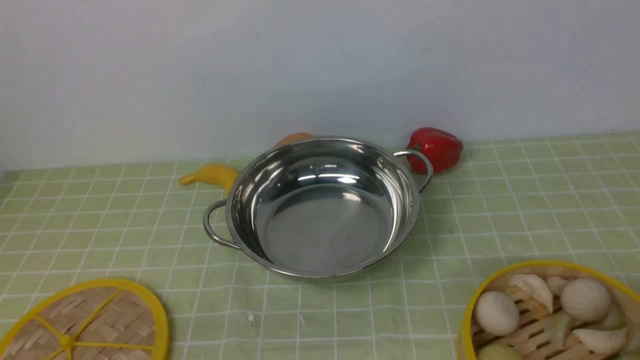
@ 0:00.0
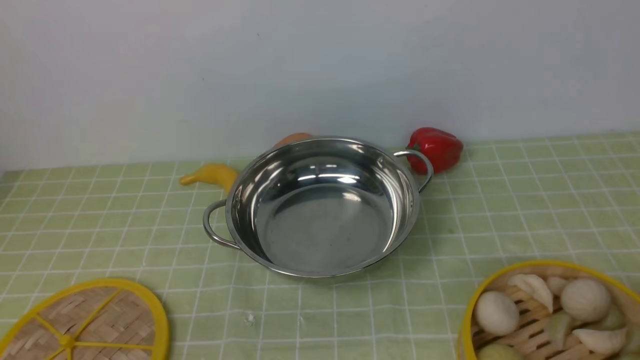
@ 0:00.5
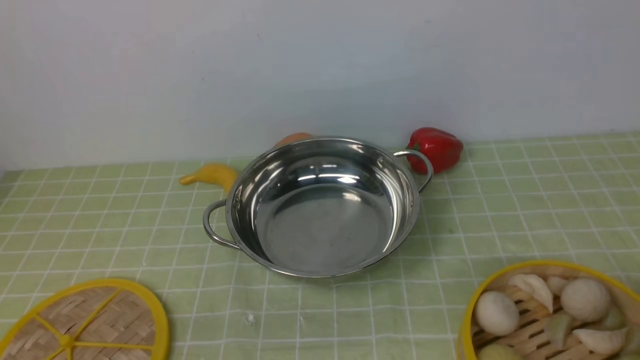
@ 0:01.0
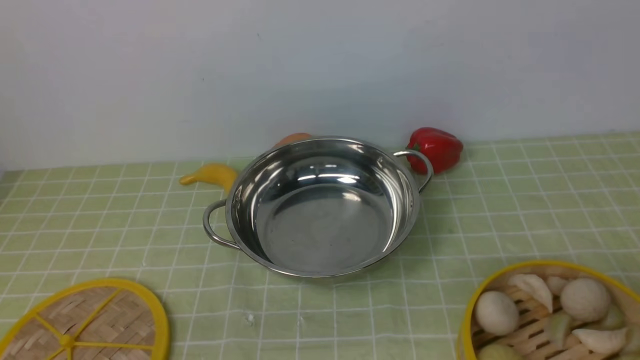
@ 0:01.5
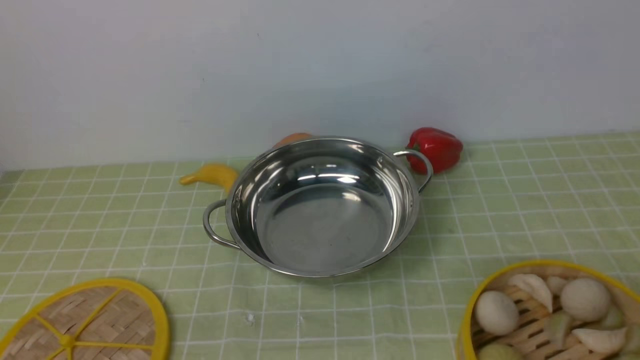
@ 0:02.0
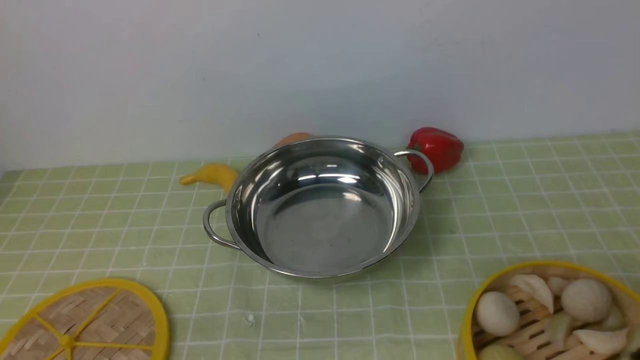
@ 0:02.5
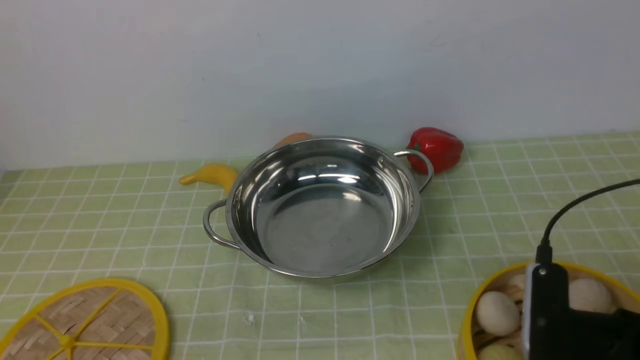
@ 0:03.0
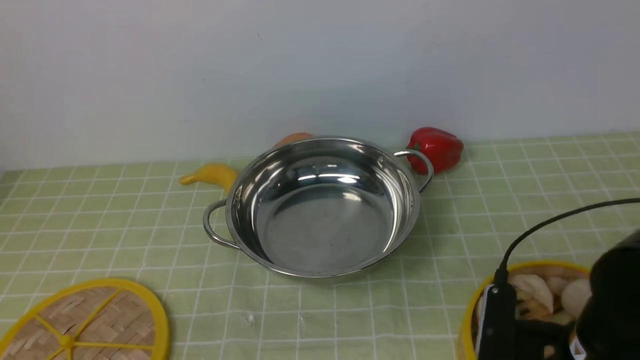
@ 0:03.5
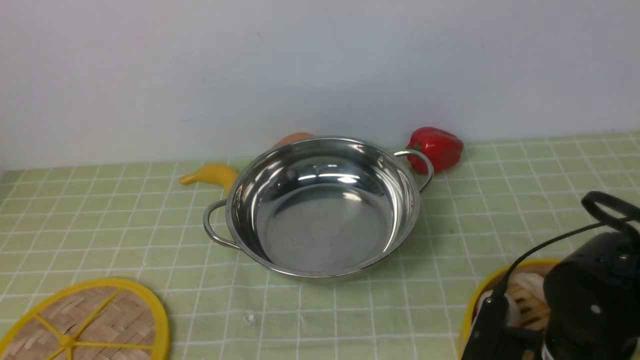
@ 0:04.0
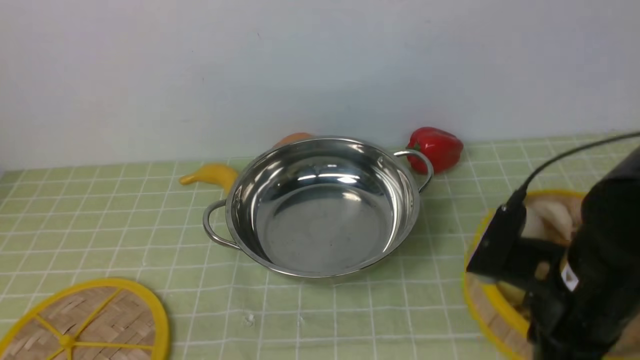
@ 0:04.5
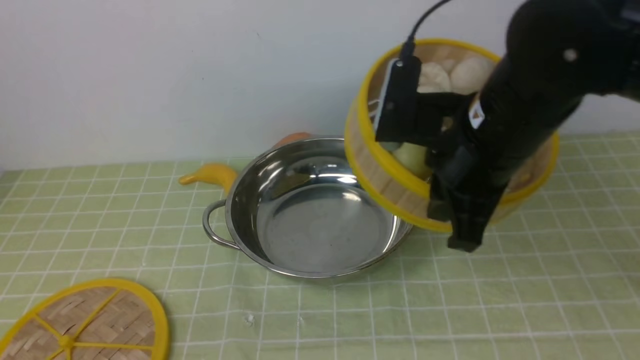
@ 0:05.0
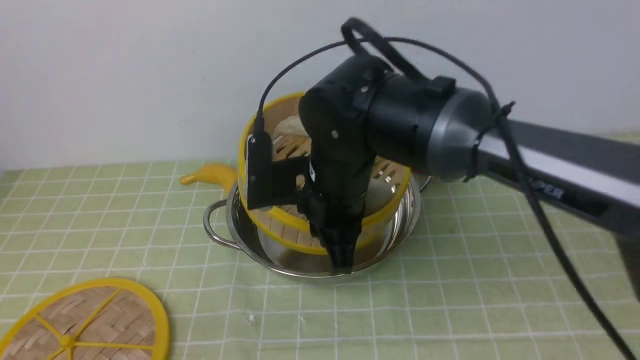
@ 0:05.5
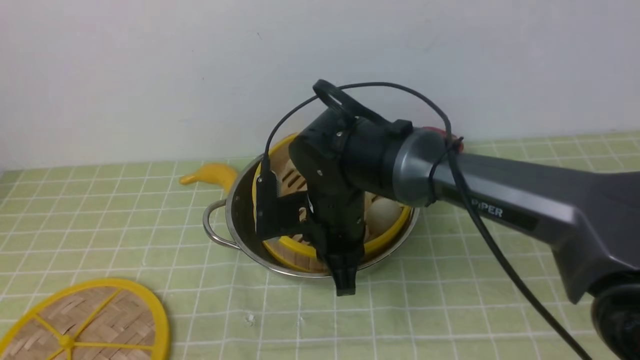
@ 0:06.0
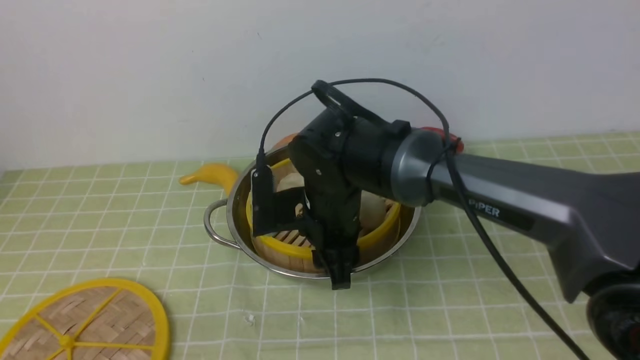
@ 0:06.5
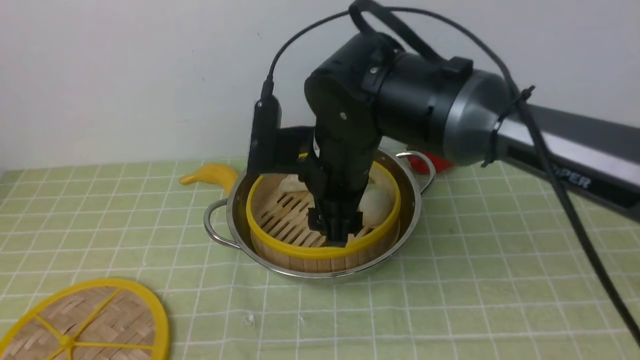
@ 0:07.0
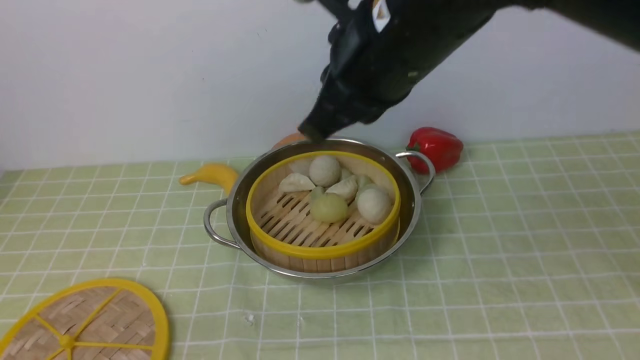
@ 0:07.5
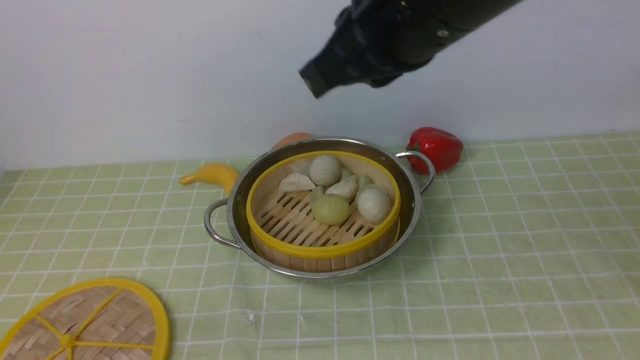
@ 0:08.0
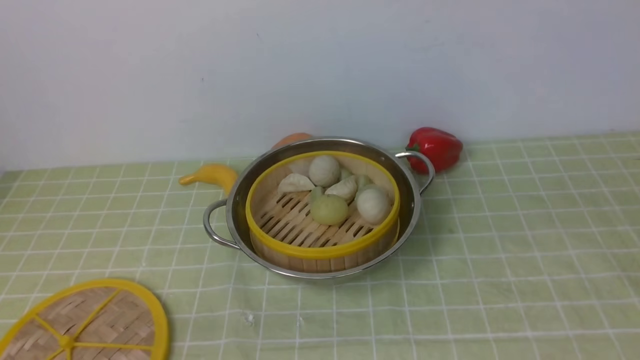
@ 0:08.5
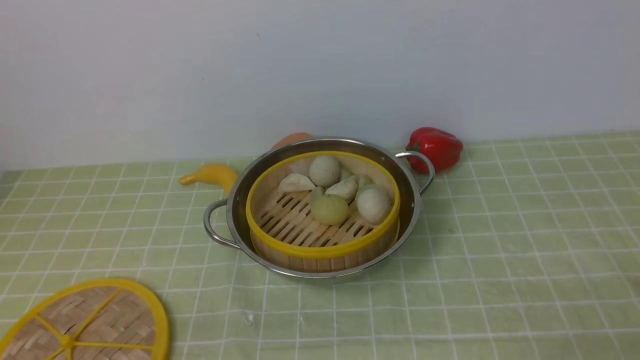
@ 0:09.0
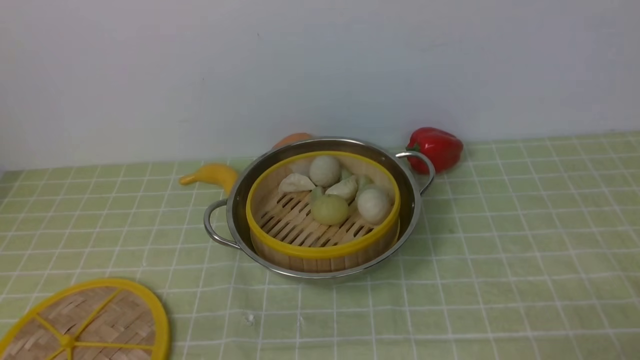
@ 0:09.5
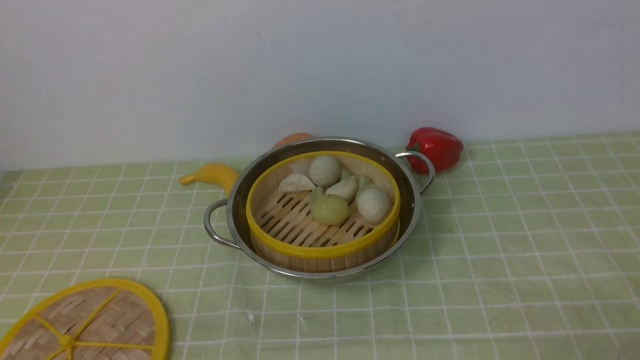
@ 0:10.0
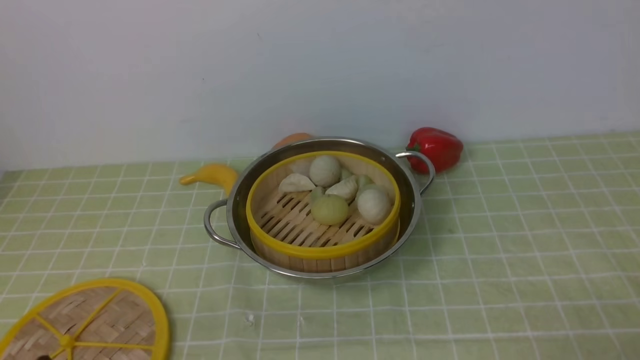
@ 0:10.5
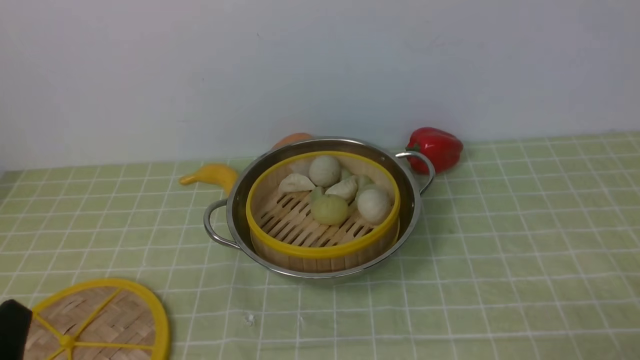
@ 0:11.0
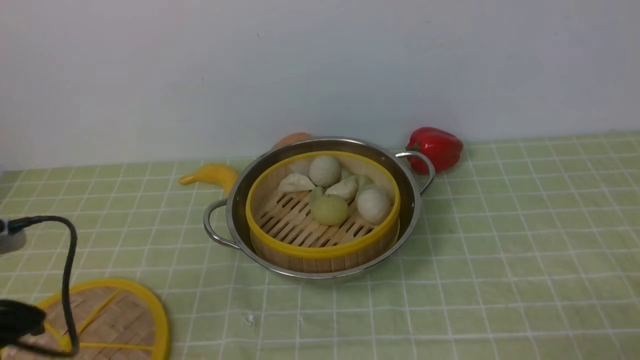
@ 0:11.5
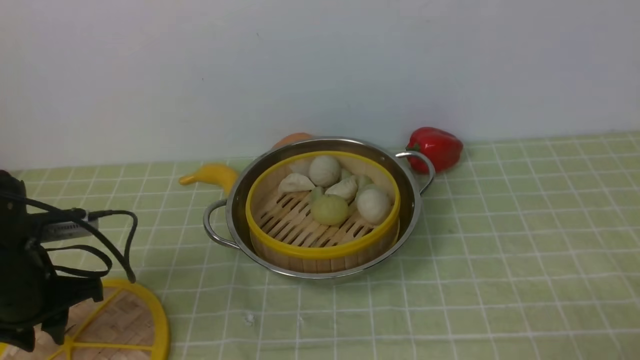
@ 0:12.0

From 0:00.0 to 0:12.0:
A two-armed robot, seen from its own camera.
Task of the whole recording: place the steamer in the pot on the green tablecloth, and put the lid on the steamer.
Step, from 0:00.0 to 0:05.0: use the right arm to lift the steamer closest to it.
Step, from 0:05.5 to 0:08.5: use the right arm to put the steamer into the iron steamer pot in the middle.
From 0:02.0 to 0:04.0: The right gripper goes about 25 cm forward, downward and to the left.
From 0:04.0 to 0:06.0: The right gripper travels to the left and forward by roughly 25 cm.
From 0:06.0 to 0:08.0: The right gripper goes roughly 25 cm upward and to the right, and opens, then closes again.
From 0:08.0 to 0:10.0: The right gripper is displaced downward, to the right and backward by about 40 cm, and opens.
From 0:10.0 to 0:12.0: The left gripper heads forward, covering some 20 cm.

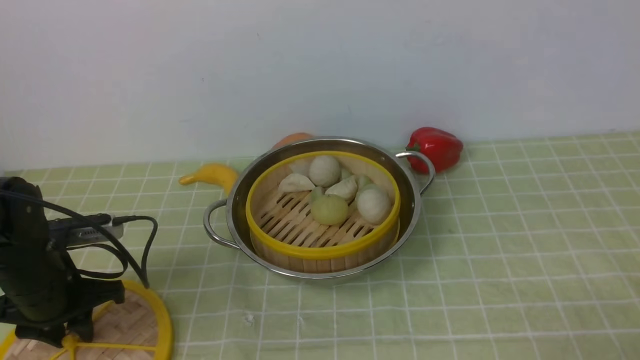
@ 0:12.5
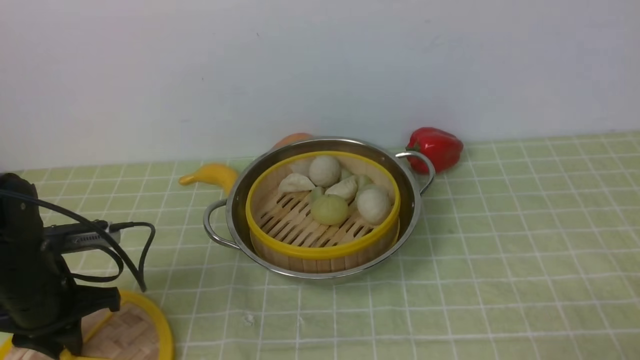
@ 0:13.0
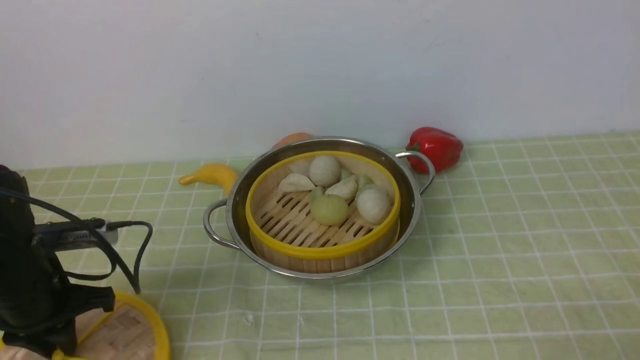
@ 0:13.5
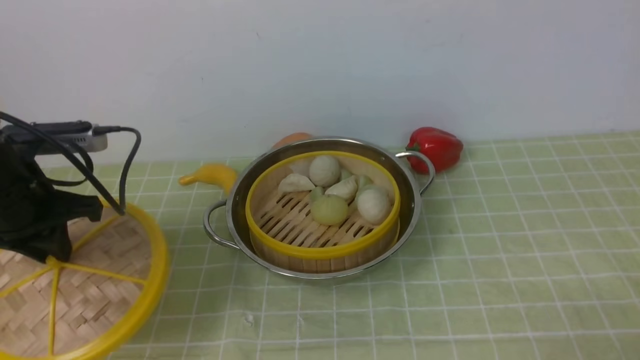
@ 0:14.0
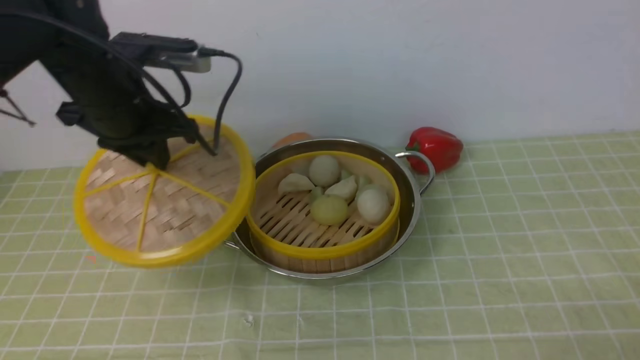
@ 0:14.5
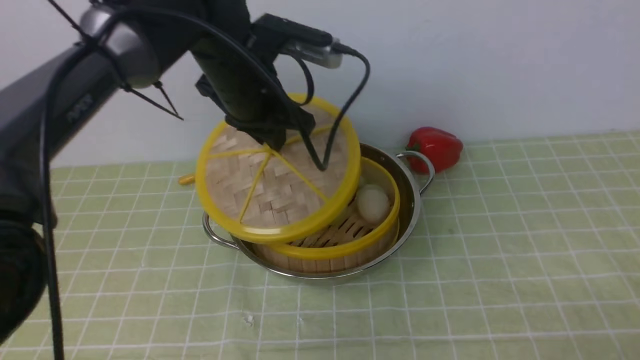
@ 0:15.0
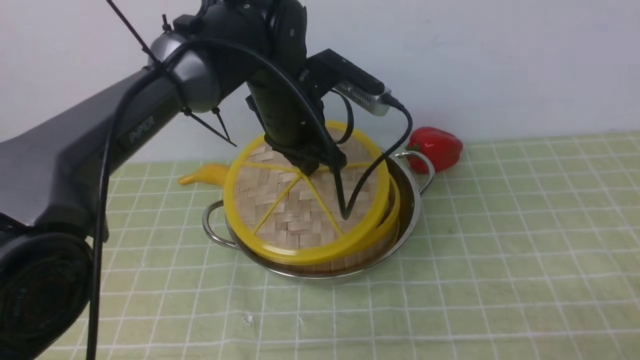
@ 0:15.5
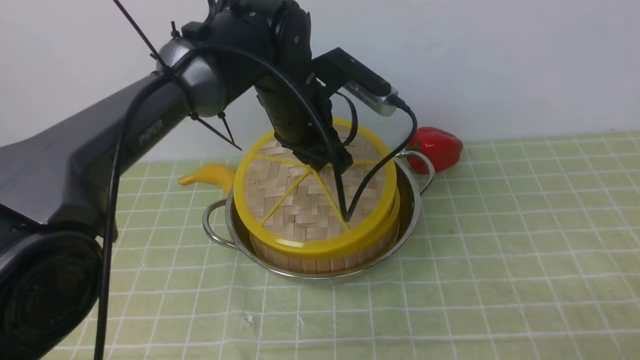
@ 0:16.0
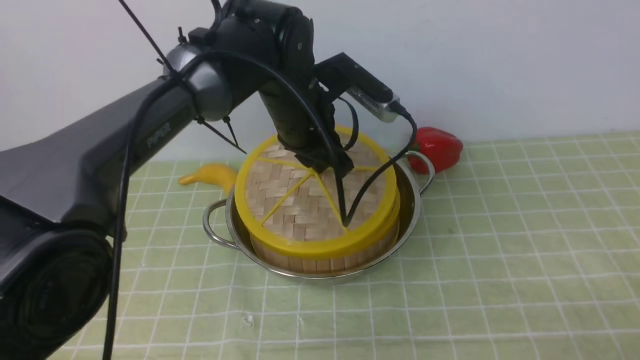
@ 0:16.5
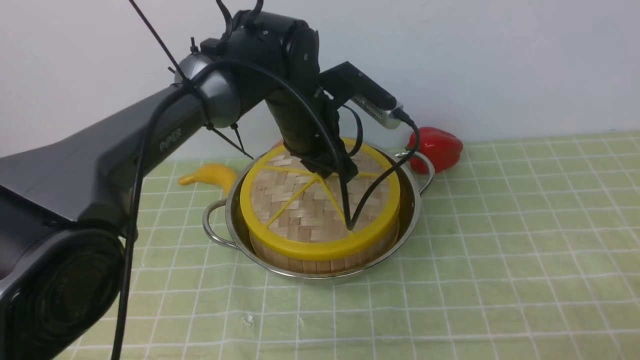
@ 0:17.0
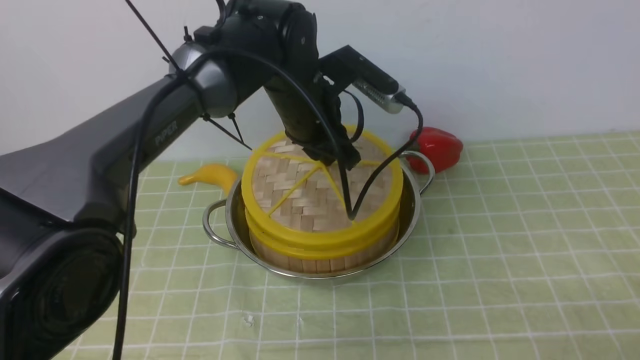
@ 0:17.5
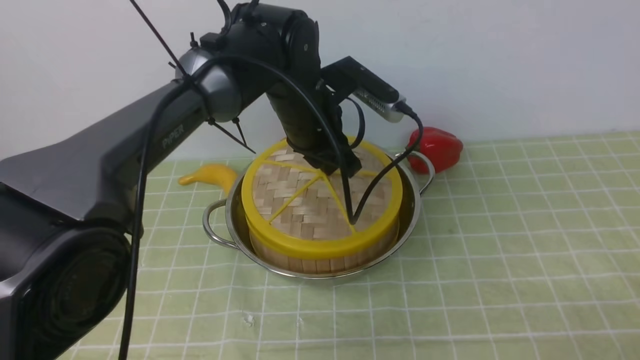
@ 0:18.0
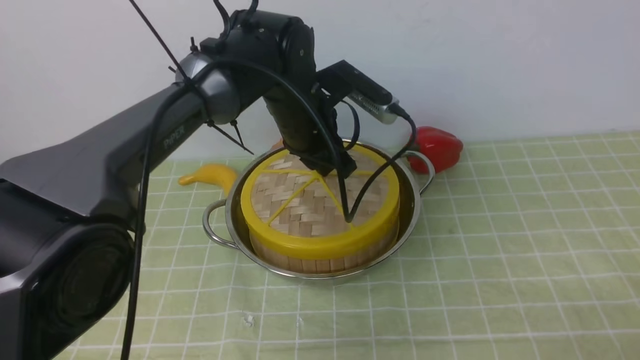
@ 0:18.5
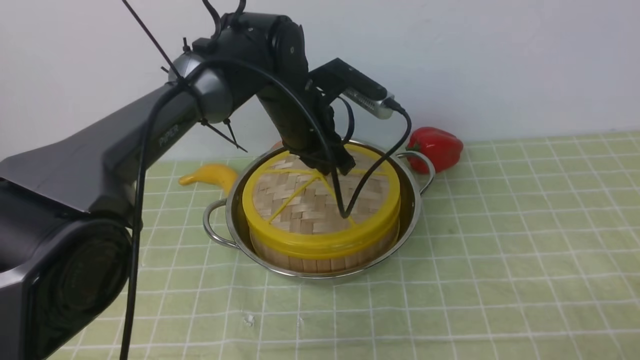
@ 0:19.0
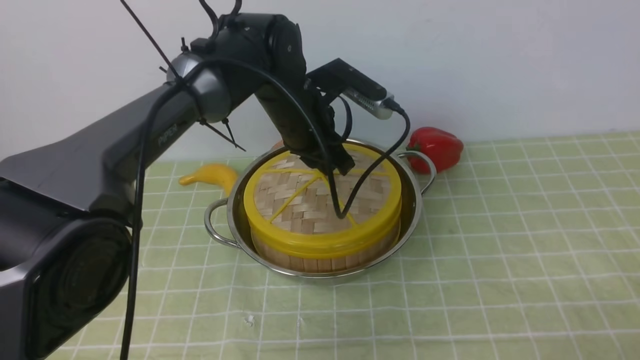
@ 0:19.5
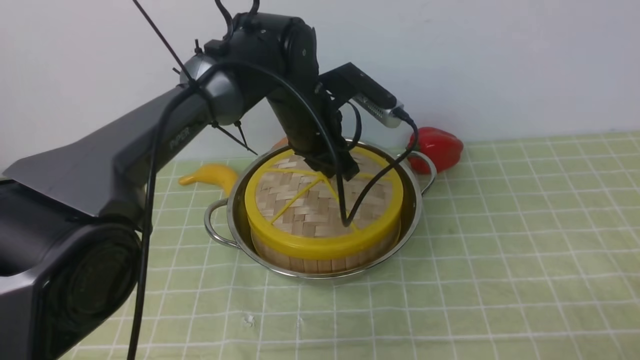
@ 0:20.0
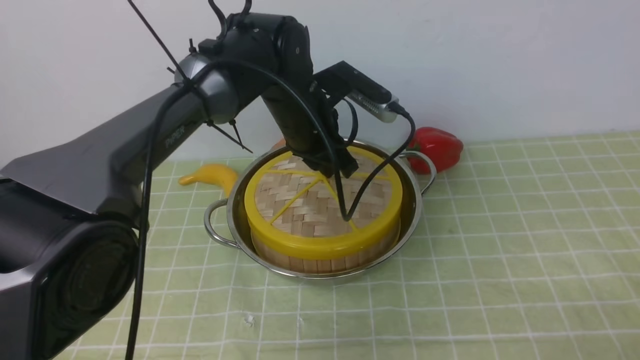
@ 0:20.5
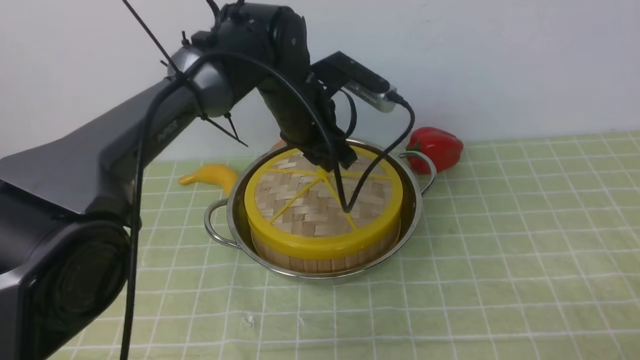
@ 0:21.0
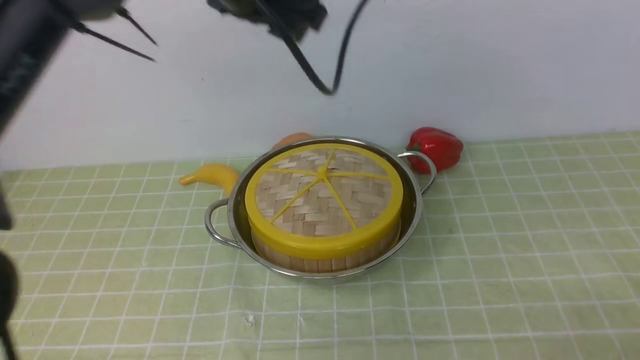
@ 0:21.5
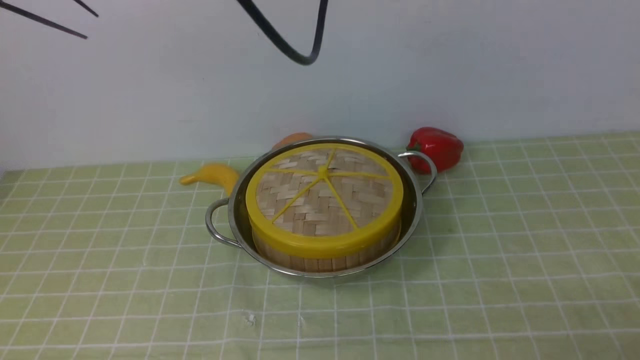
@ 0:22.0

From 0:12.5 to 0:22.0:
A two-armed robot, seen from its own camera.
Task of the whole recording: place the steamer in the pot on the green tablecloth, and put the lid on the steamer.
Step, from 0:14.0 to 0:21.0: use the left arm to place the steamer lid on the steamer.
From 0:12.5 to 0:14.5: The left gripper moves upward, forward and to the right, about 20 cm, and closes up.
From 0:14.5 to 0:16.5: The left gripper travels to the right by approximately 15 cm.
From 0:16.5 to 0:18.0: The two grippers keep their place.
From 0:18.0 to 0:20.0: The grippers move only a little.
From 0:20.0 to 0:22.0: The left gripper heads upward, covering approximately 20 cm, and opens.
